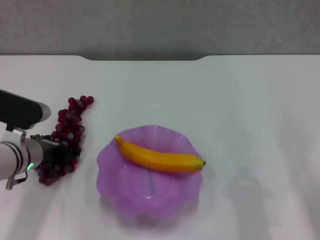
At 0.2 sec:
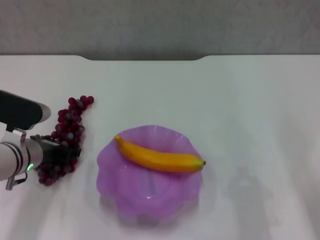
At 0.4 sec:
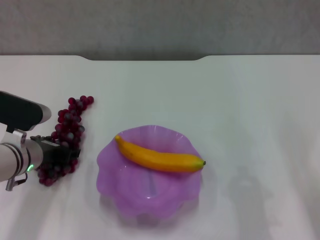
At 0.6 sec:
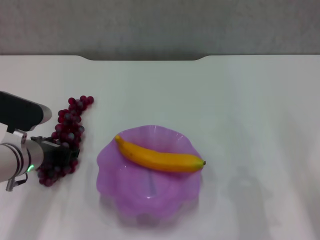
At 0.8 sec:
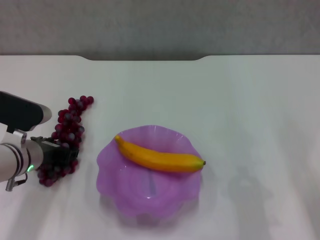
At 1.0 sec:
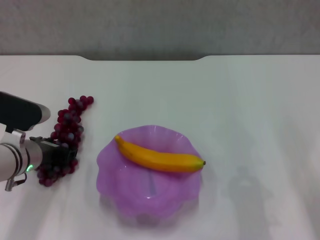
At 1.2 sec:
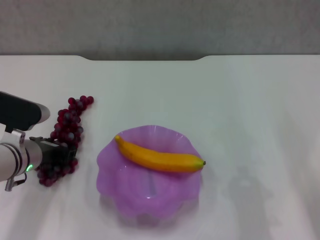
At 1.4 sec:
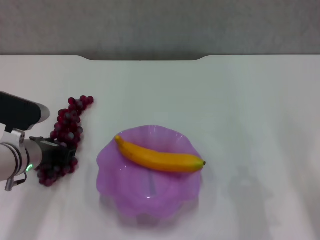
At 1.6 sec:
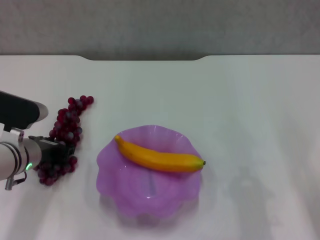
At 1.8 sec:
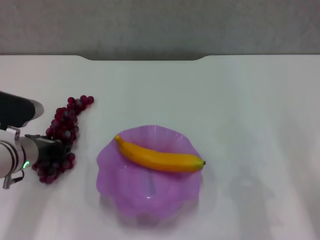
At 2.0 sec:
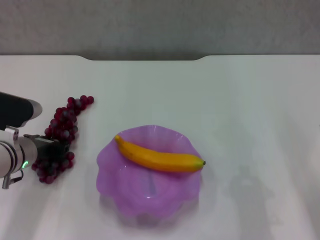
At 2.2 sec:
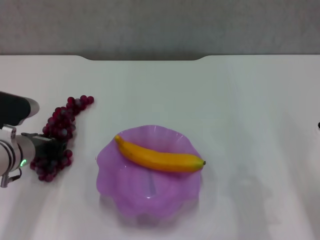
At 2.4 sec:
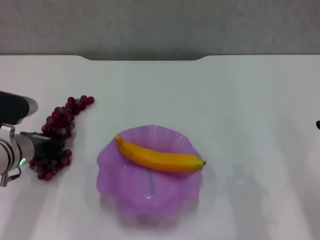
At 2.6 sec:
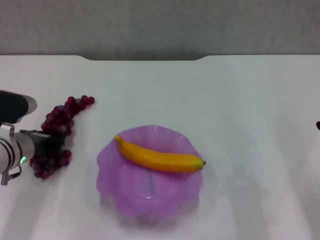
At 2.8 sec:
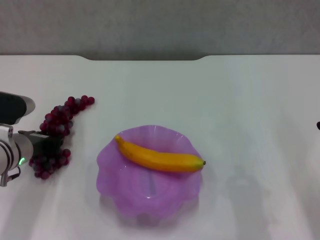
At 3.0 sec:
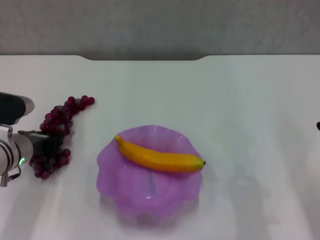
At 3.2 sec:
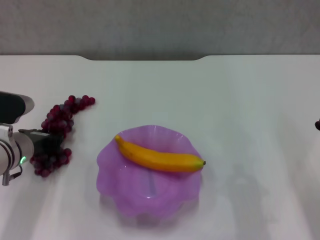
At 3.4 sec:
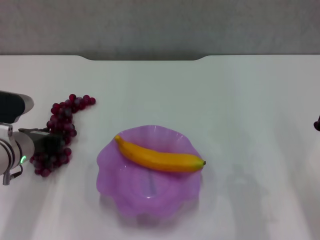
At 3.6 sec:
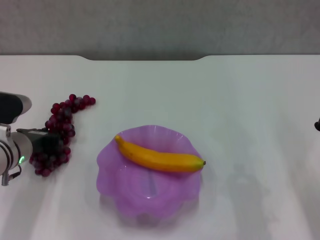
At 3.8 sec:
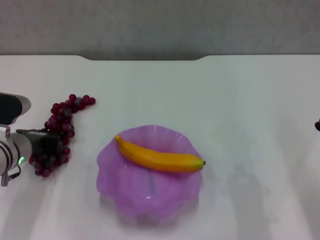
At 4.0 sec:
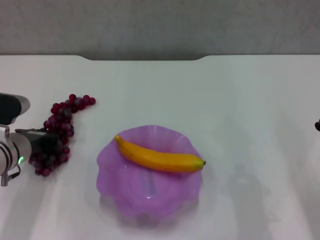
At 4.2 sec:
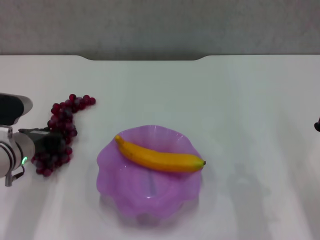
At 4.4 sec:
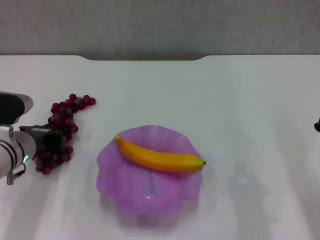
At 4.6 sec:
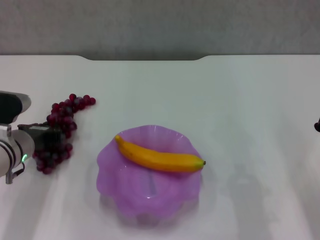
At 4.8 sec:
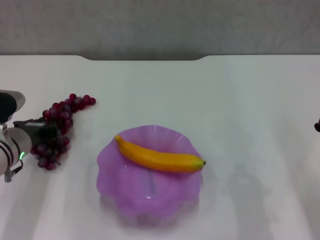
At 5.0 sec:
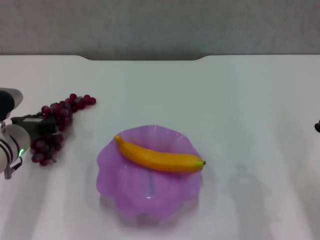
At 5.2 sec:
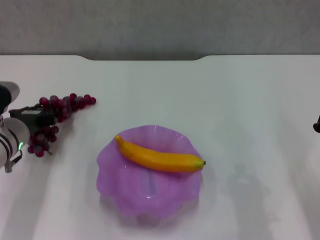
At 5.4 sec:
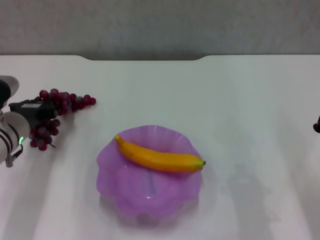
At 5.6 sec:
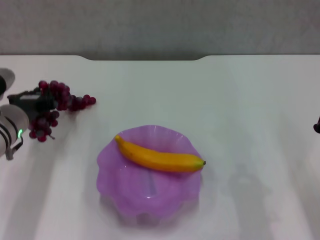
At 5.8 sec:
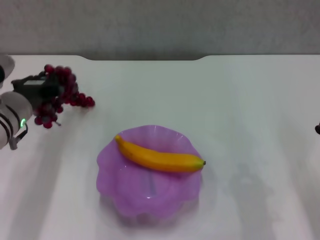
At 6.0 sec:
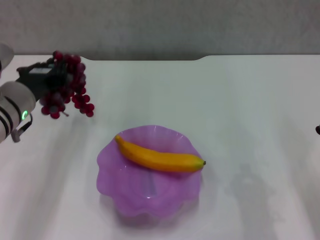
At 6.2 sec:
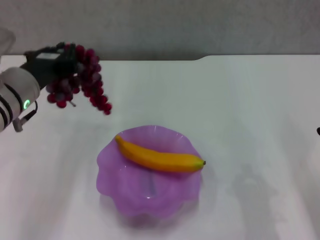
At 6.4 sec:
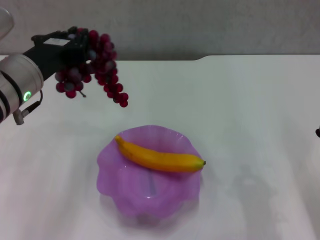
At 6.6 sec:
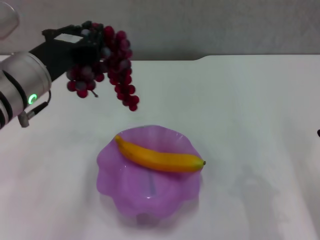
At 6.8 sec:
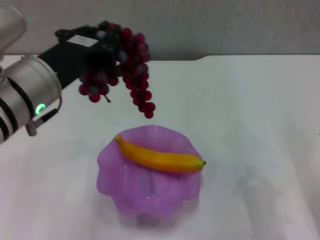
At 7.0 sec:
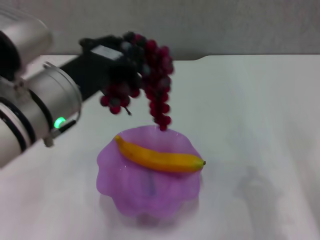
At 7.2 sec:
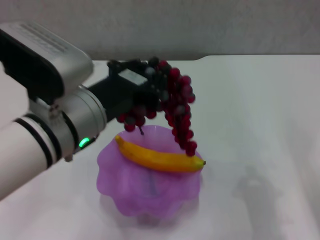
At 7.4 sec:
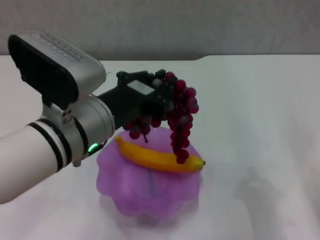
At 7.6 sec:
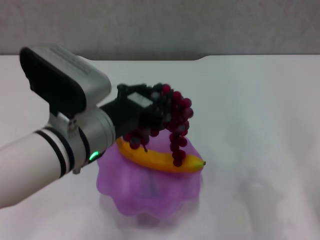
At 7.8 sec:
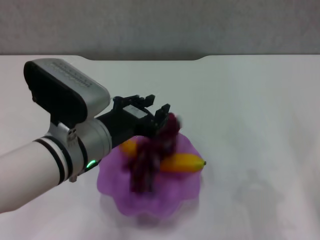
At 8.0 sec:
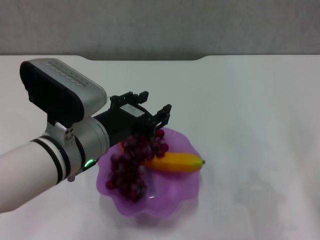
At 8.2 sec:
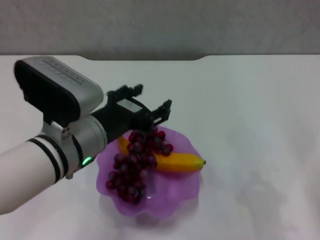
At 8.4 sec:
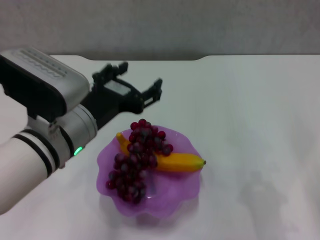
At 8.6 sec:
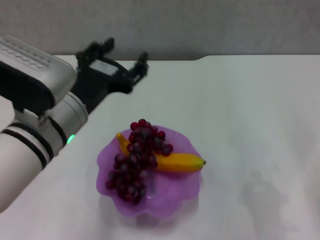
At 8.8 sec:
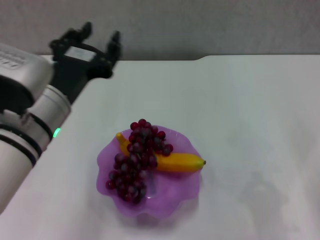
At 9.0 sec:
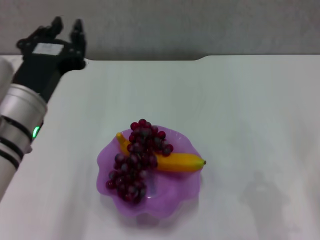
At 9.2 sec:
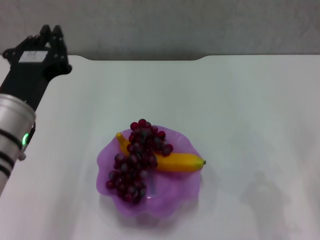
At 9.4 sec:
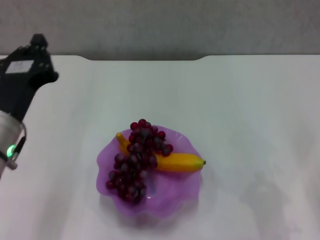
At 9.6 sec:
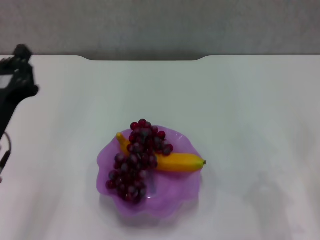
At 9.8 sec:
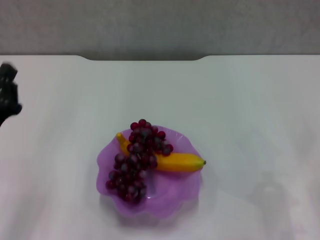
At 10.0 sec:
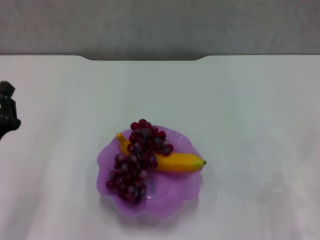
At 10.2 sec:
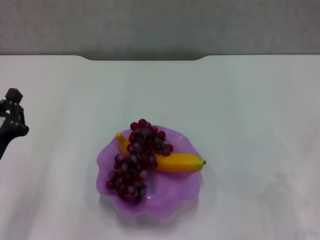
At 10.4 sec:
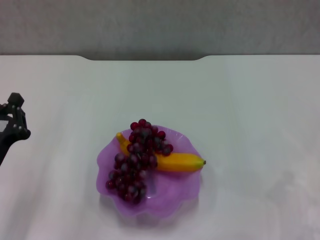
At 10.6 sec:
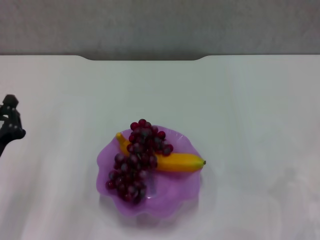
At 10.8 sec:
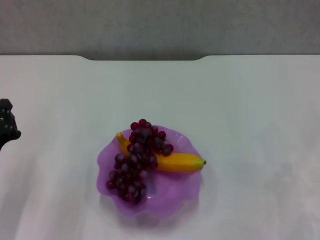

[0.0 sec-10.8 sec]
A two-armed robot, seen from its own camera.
Step, 0.0 sec to 2.2 sec: Grasp the grape with left gripper.
Step, 2.4 sec to 8.2 sec: Place the grape in the purple plate with left gripper.
0.0 sec to 1.6 sec: The two grippers keep their place.
1.6 sec to 4.6 sec: The grippers make only small movements.
4.6 sec to 6.2 sec: The left gripper goes roughly 10 cm upward.
6.2 sec to 7.8 sec: The left gripper goes approximately 10 cm to the right and backward.
7.8 sec to 9.2 sec: The left gripper is displaced to the left by about 5 cm, and opens, then closes once more.
9.2 sec to 10.8 sec: The left gripper is displaced downward and to the left by about 15 cm, and closes.
